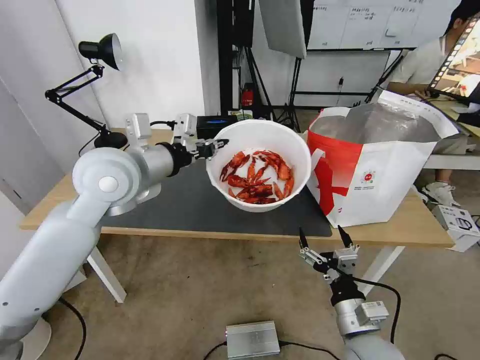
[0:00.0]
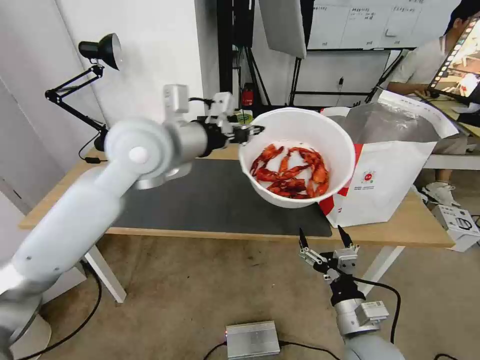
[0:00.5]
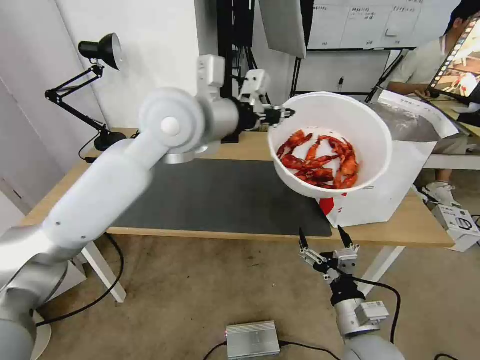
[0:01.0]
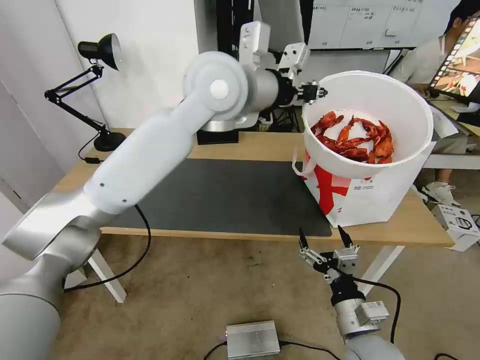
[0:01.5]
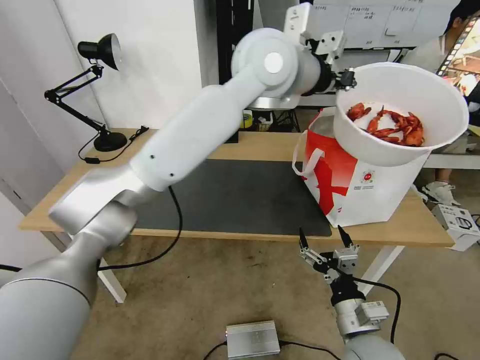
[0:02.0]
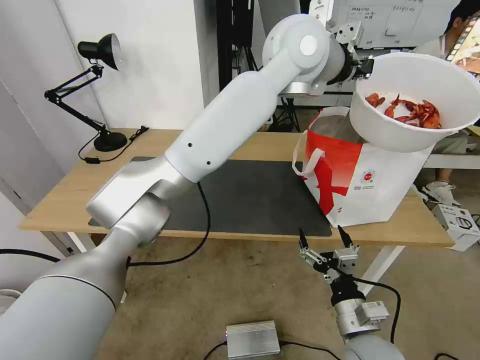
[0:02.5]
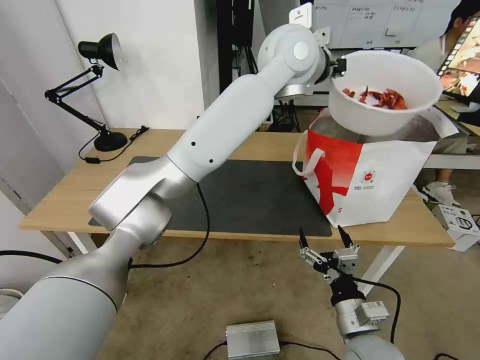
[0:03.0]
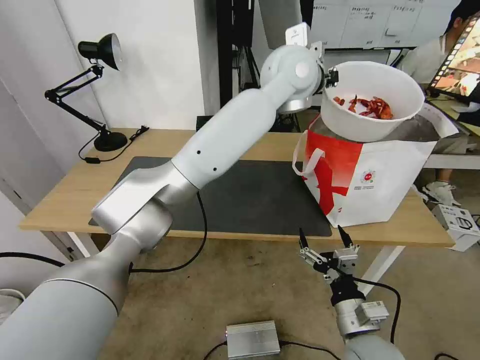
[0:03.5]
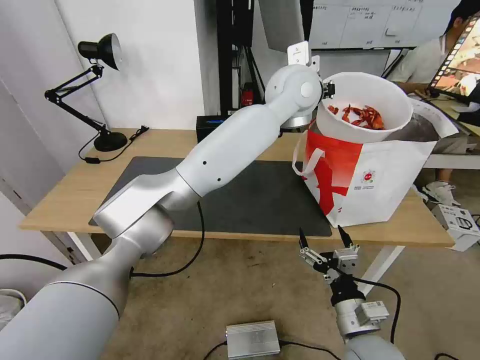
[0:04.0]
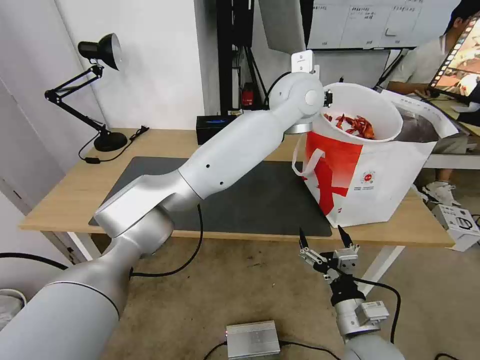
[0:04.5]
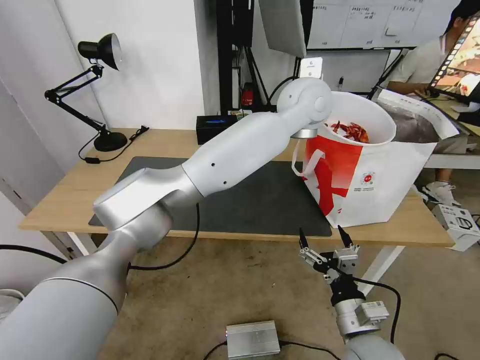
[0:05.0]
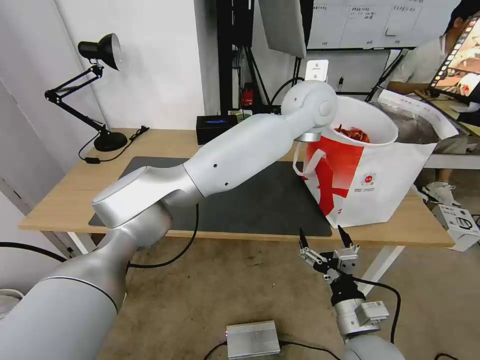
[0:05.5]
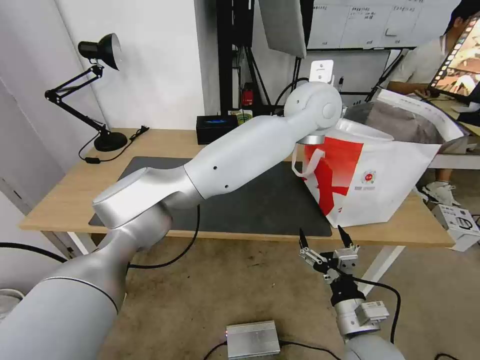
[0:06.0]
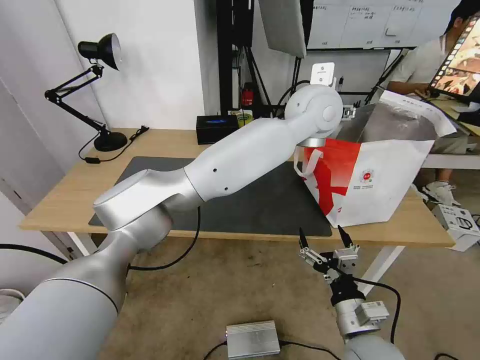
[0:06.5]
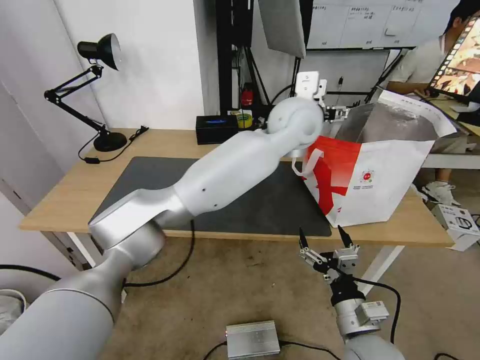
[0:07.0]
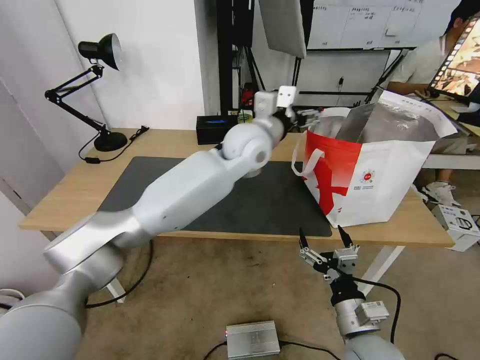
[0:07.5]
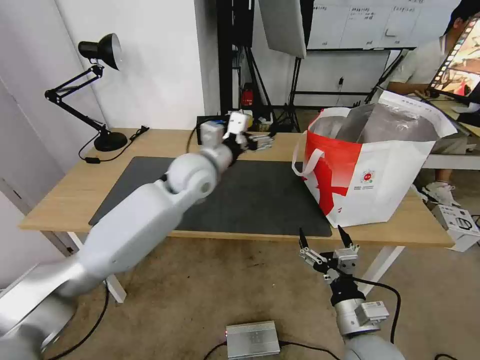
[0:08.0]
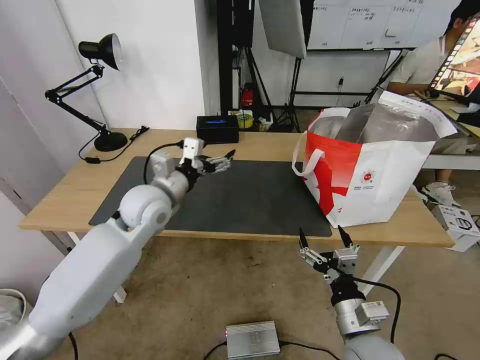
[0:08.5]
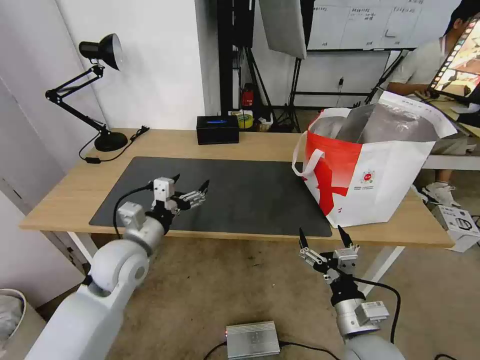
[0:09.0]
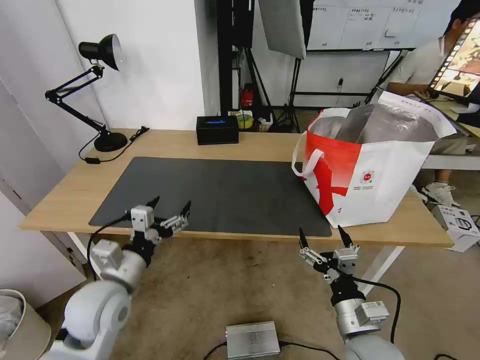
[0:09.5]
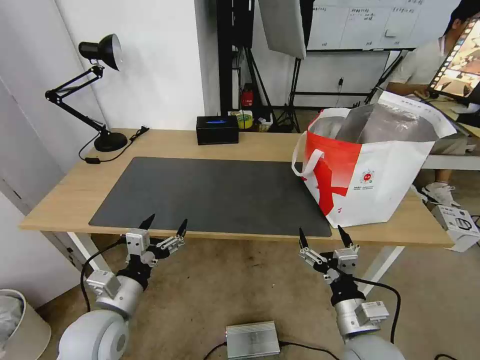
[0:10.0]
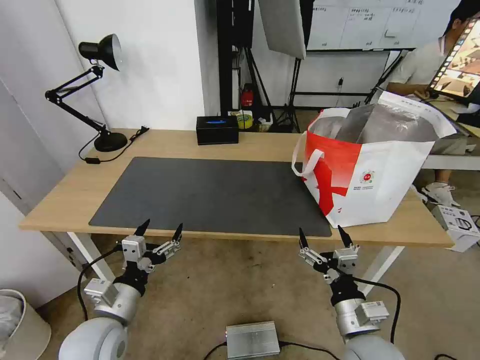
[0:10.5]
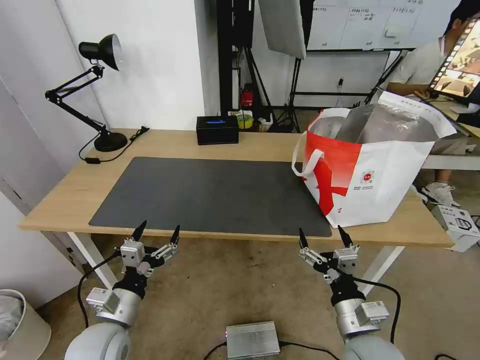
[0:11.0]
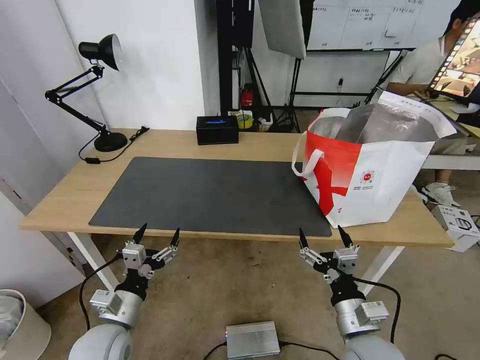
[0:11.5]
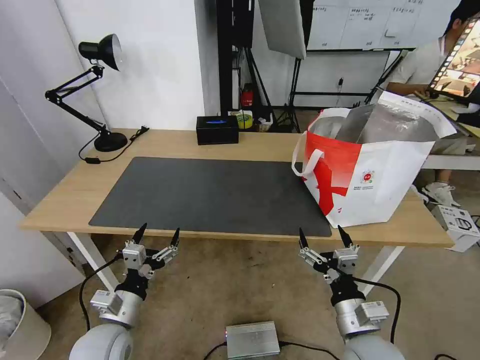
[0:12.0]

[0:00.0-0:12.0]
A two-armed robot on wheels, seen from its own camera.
Task of the whole recording: Pick up the trash from the table and place it into the takeout bag.
0:00.0 to 0:02.0: The left gripper shifts roughly 25 cm to the right and upward.
0:02.0 to 0:04.0: The left gripper is displaced to the right, downward and forward by about 10 cm.
0:04.0 to 0:06.0: The left gripper opens.
0:06.0 to 0:08.0: The left gripper travels to the left and downward by about 25 cm, and opens up.
0:08.0 to 0:10.0: The left gripper travels backward, downward and to the left by about 35 cm.
0:10.0 to 0:12.0: The left gripper travels downward by approximately 5 cm.

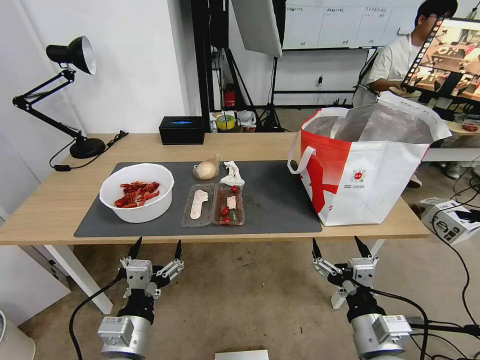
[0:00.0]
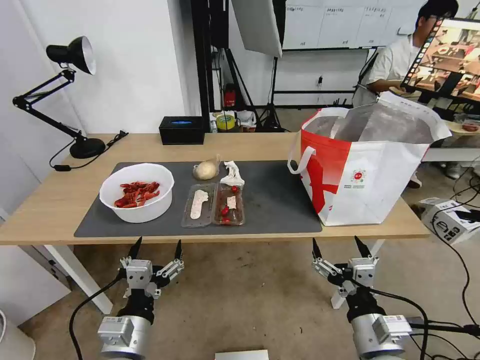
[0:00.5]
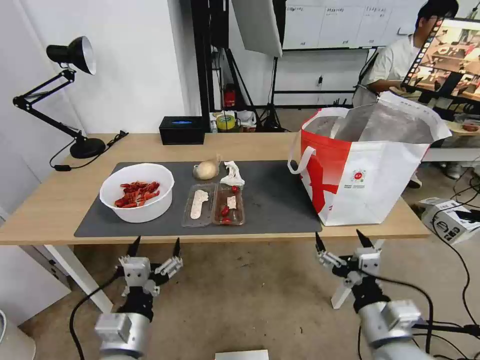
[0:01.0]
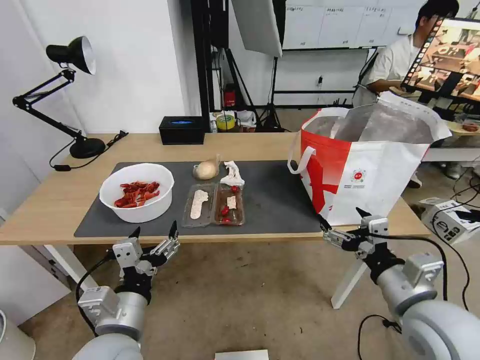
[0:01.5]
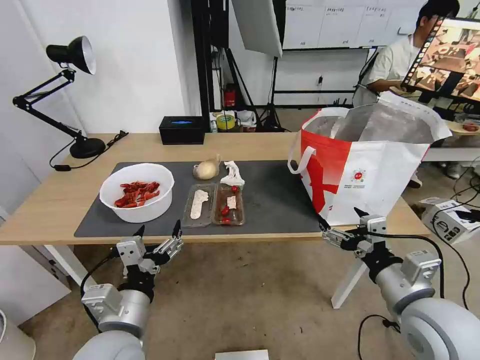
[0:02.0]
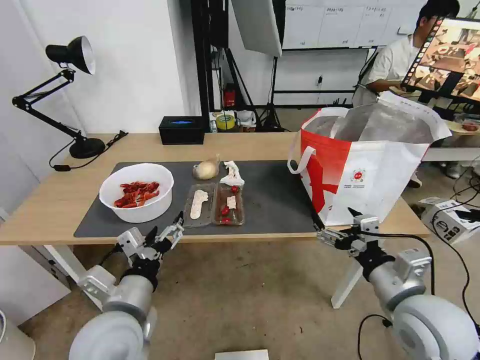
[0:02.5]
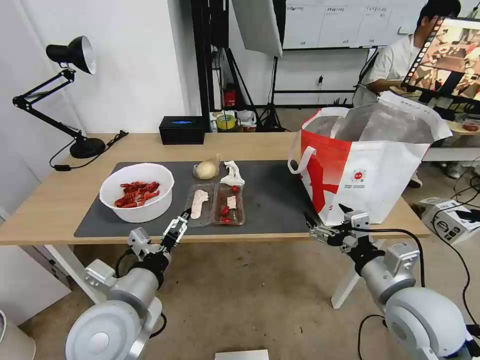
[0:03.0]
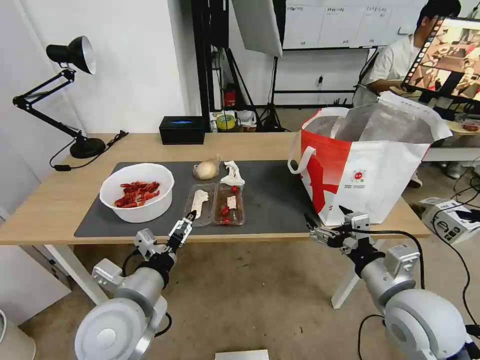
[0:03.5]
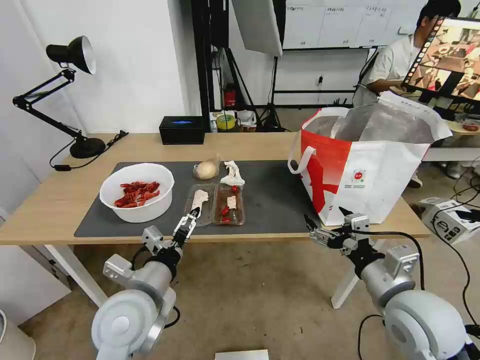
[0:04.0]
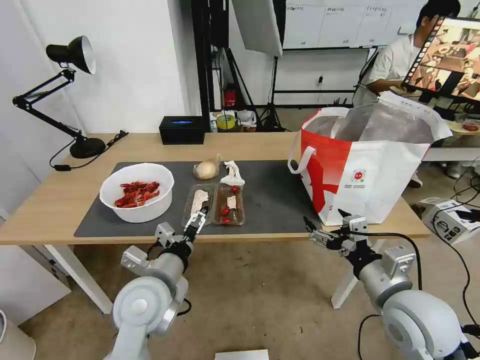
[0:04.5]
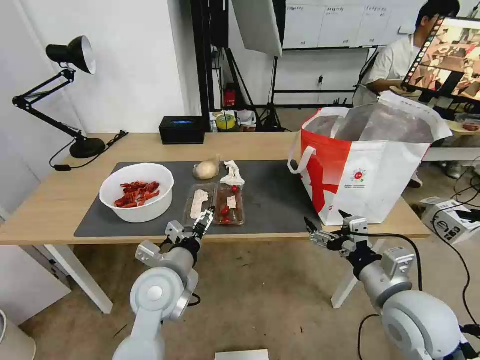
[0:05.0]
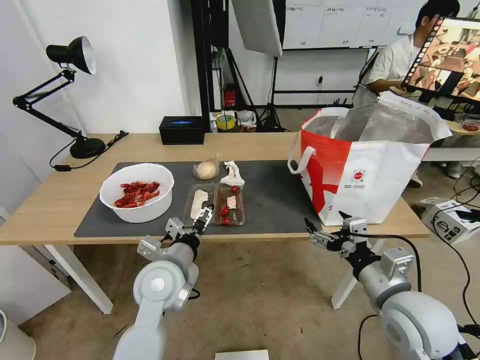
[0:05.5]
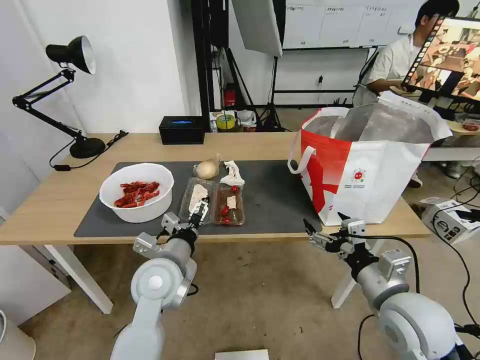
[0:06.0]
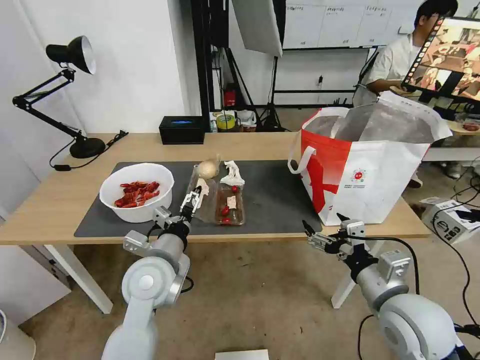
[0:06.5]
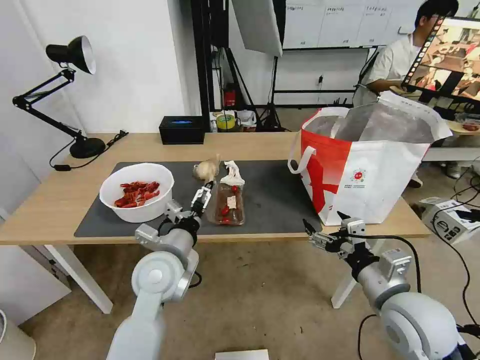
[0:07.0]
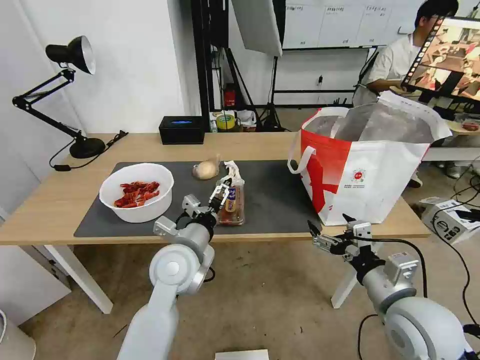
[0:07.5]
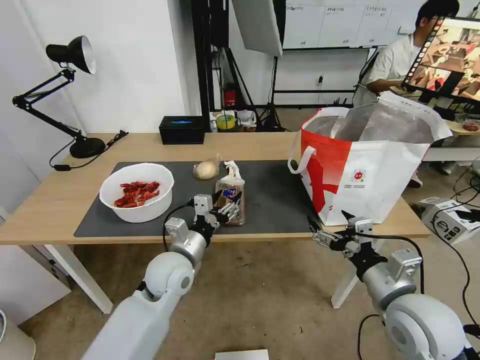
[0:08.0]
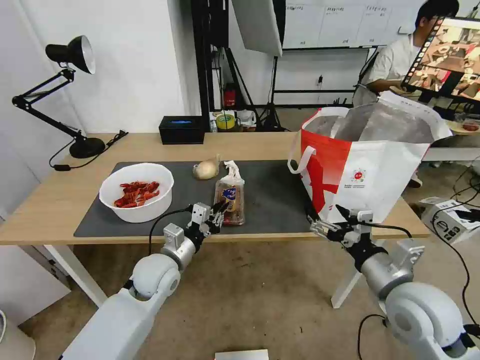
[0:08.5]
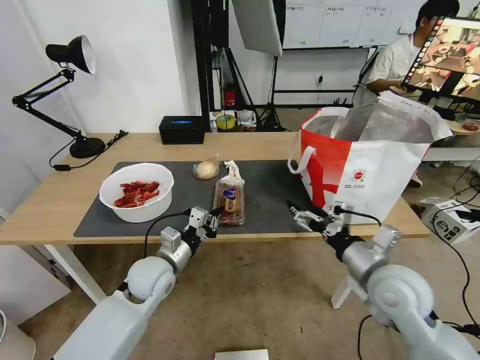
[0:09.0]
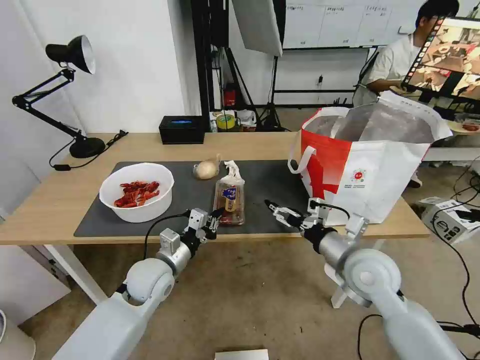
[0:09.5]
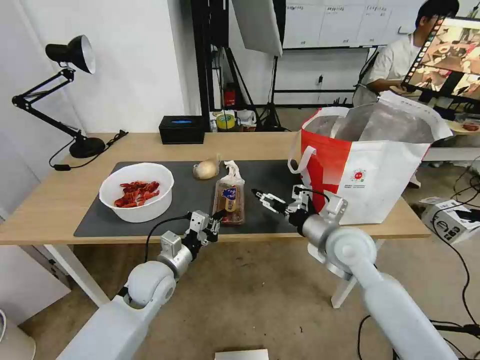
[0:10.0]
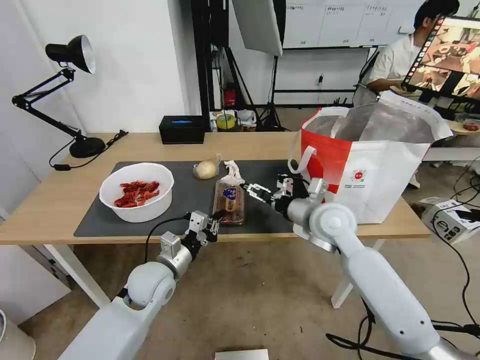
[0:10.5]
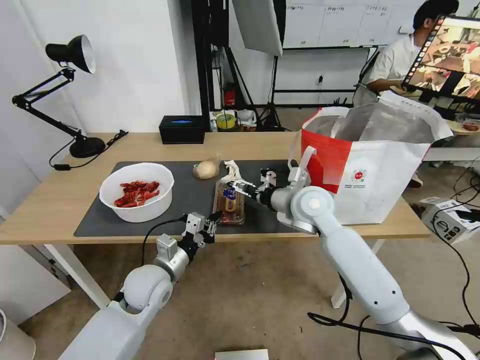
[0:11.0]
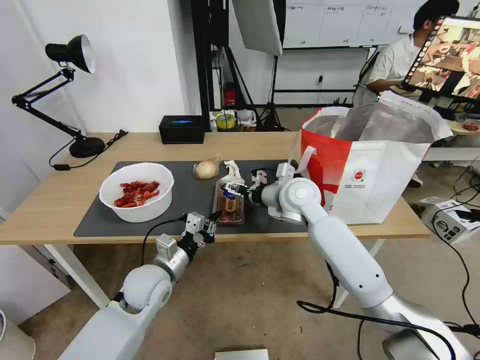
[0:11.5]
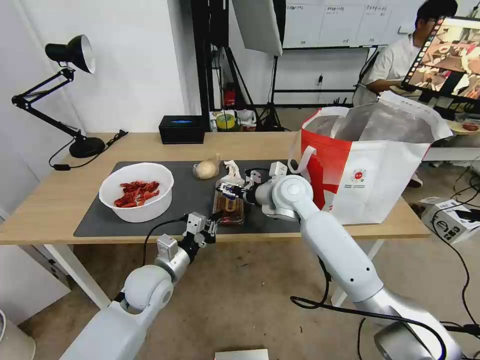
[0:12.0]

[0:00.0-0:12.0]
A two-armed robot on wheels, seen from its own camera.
Task of the whole recording: Pick up the trash from the table and place it into the takeout bag.
0:02.0 to 0:04.0: The left gripper is displaced forward by roughly 5 cm.
0:04.0 to 0:06.0: The left gripper shifts approximately 5 cm forward.
0:08.0 to 0:10.0: The left gripper goes approximately 5 cm to the left, and closes, while the right gripper moves forward and to the left, roughly 15 cm.
0:10.0 to 0:12.0: The right gripper is displaced forward and to the left by about 15 cm.

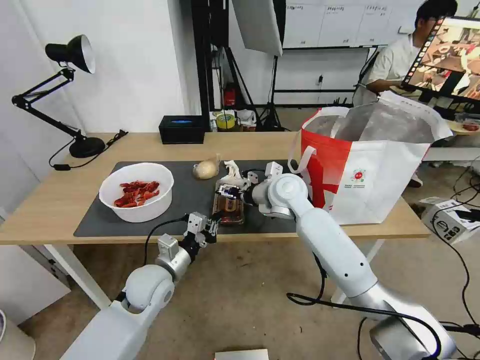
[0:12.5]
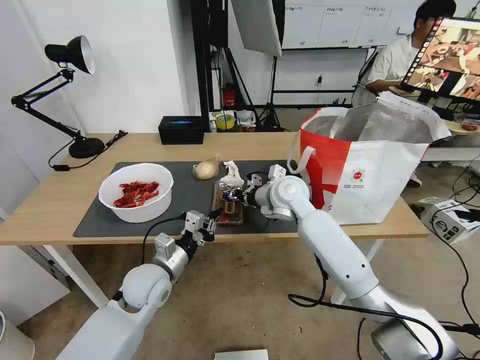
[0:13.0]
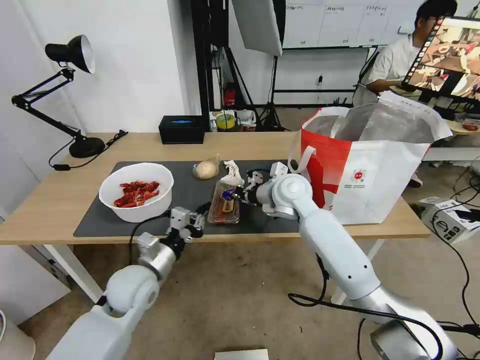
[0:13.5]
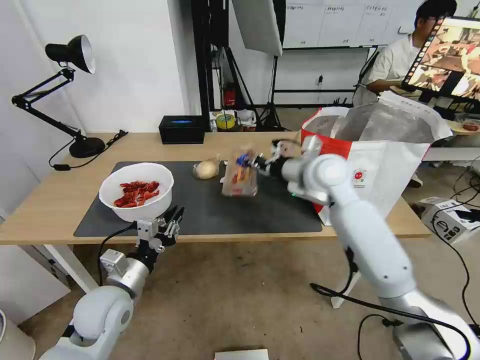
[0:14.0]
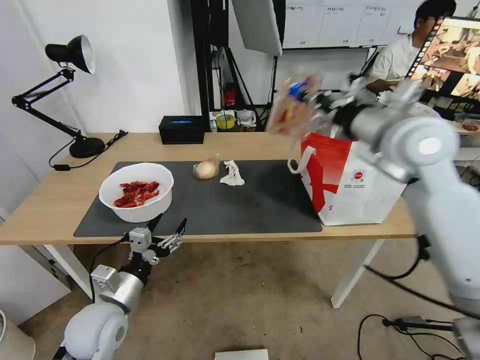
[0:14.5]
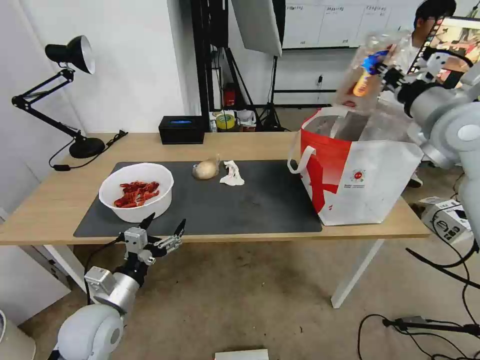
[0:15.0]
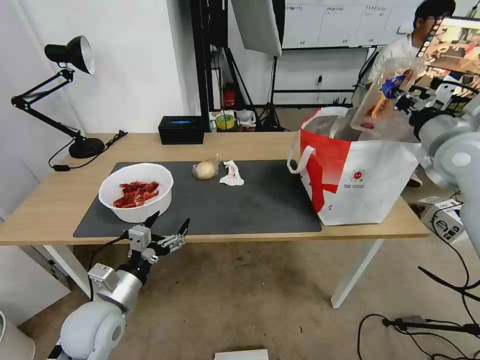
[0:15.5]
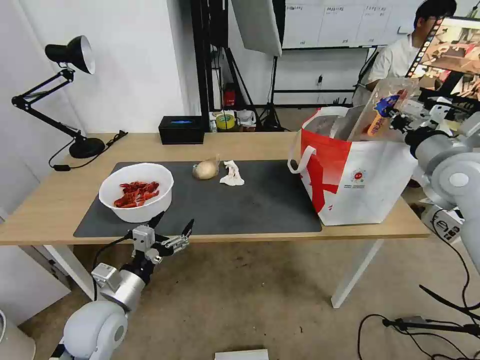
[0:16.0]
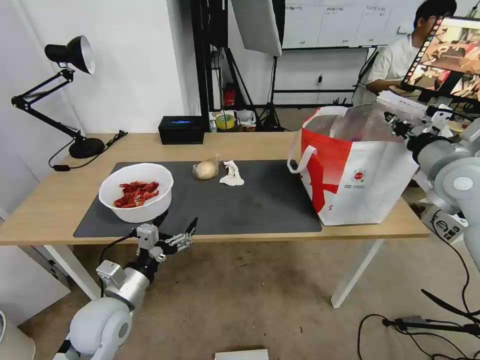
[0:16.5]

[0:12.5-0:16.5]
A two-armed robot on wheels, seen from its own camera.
Task of the whole recording: Pick up the trash from the table and place it into the takeout bag.
0:12.5 to 0:14.5: The left gripper moves backward and to the left, approximately 10 cm, and opens its fingers; the right gripper shifts roughly 25 cm upward, to the right and backward, and closes its fingers.
0:14.5 to 0:16.5: The right gripper is displaced to the right and downward by roughly 15 cm.
